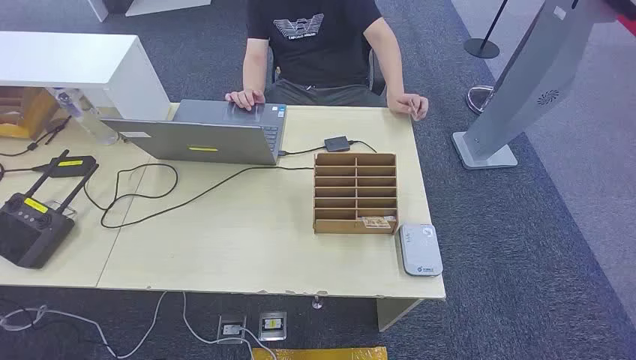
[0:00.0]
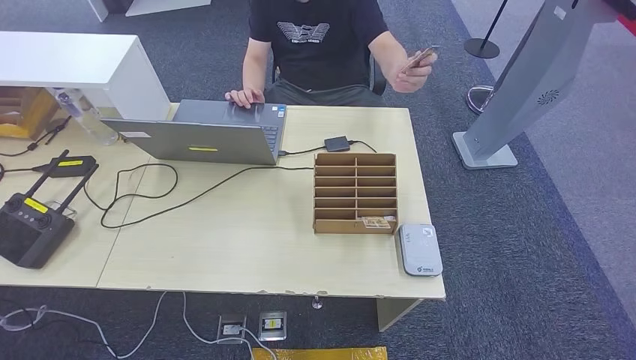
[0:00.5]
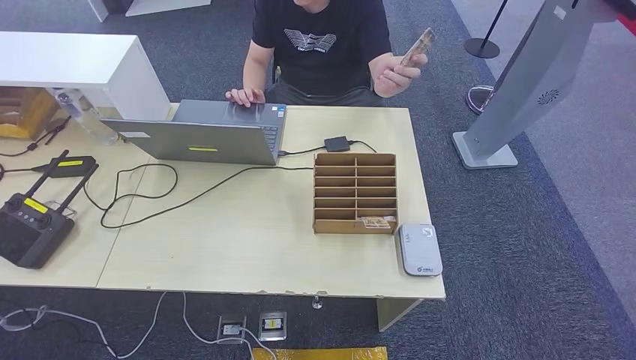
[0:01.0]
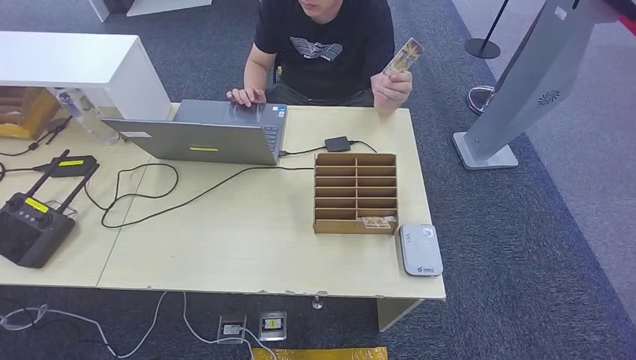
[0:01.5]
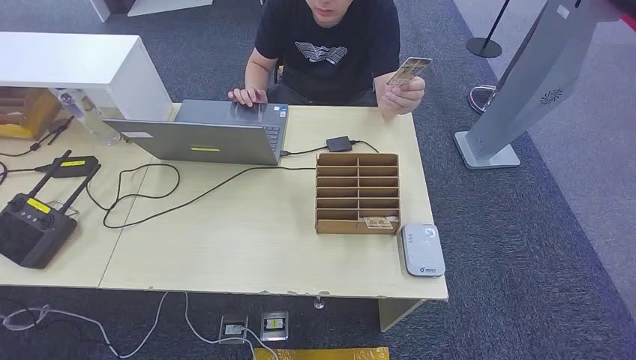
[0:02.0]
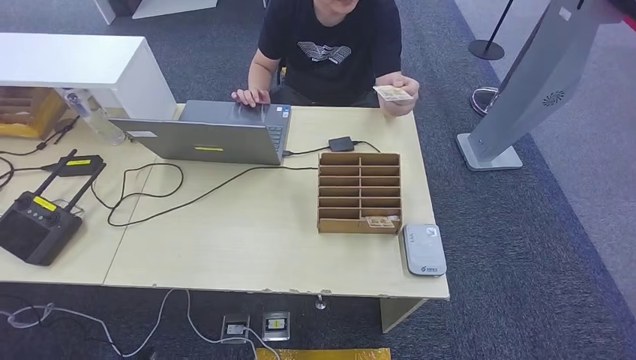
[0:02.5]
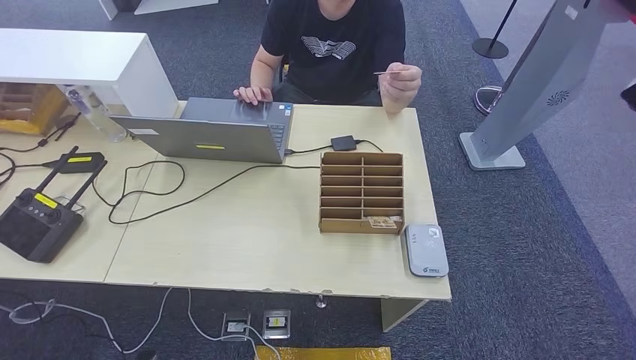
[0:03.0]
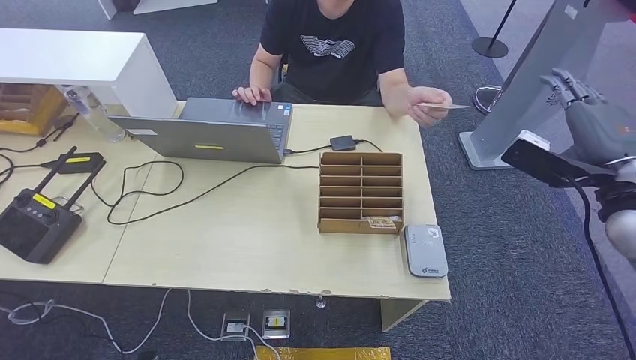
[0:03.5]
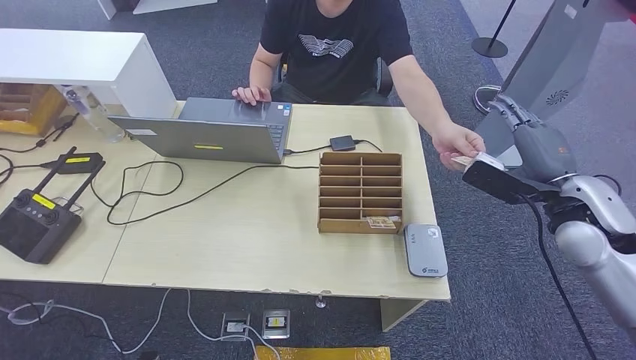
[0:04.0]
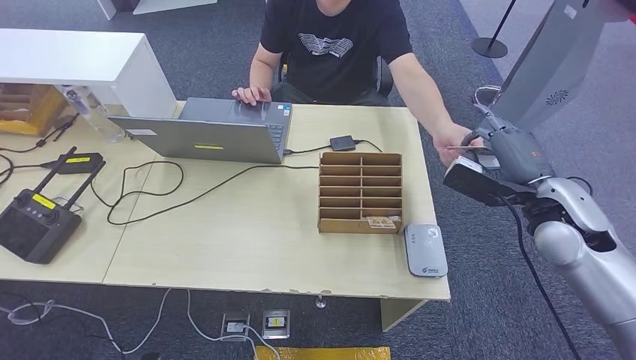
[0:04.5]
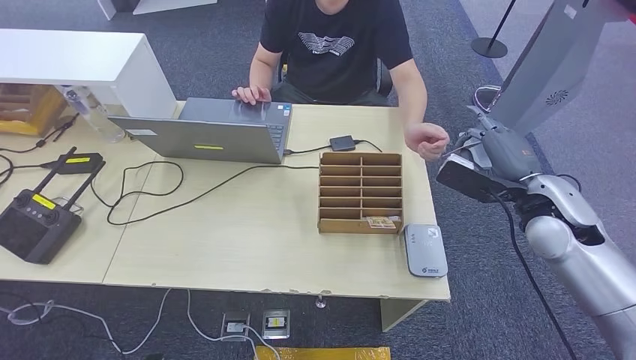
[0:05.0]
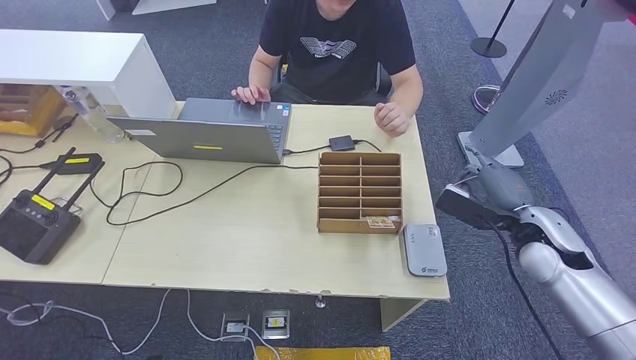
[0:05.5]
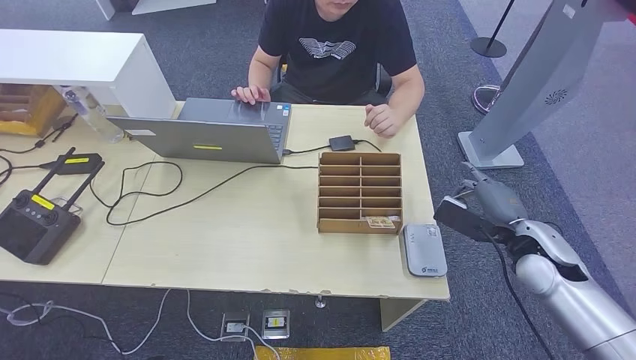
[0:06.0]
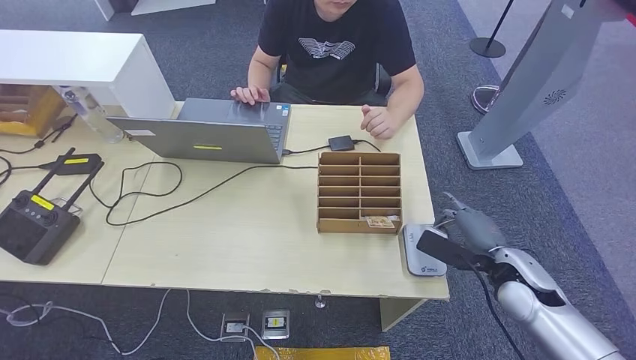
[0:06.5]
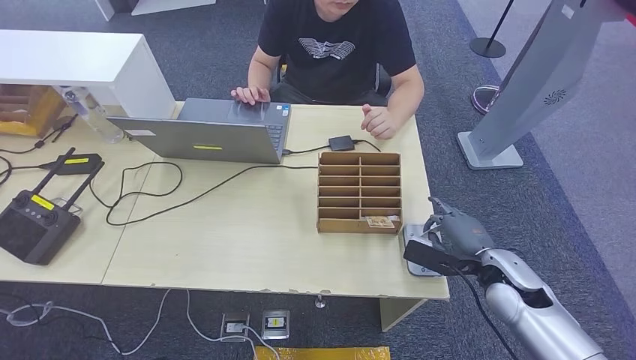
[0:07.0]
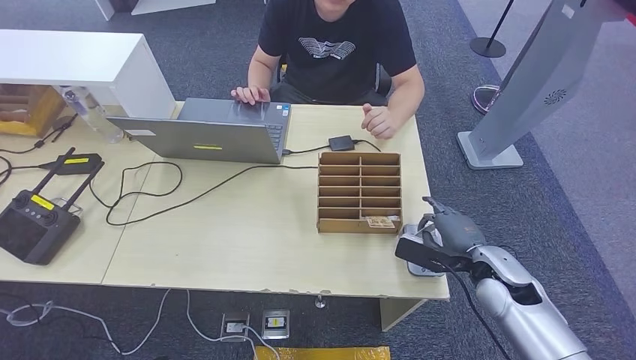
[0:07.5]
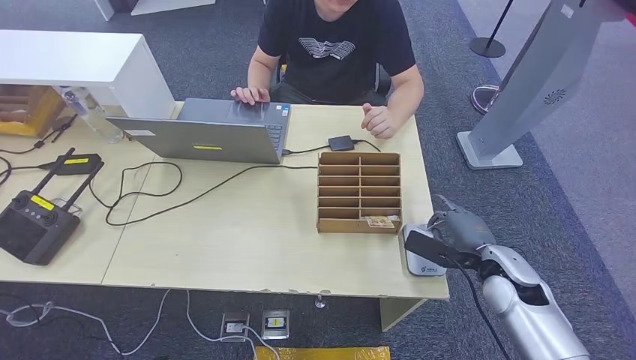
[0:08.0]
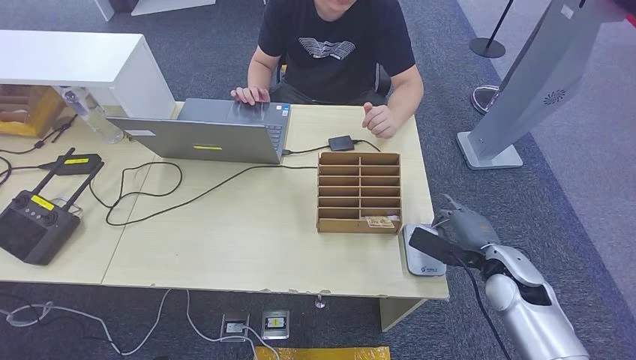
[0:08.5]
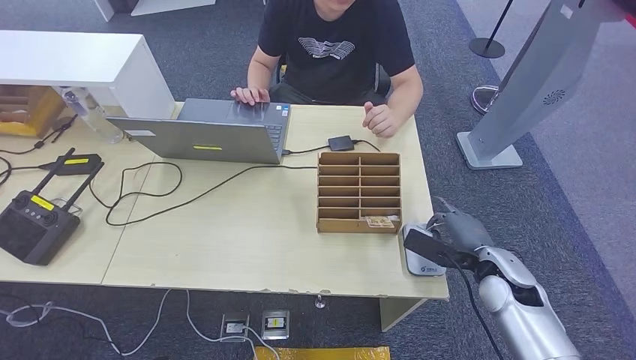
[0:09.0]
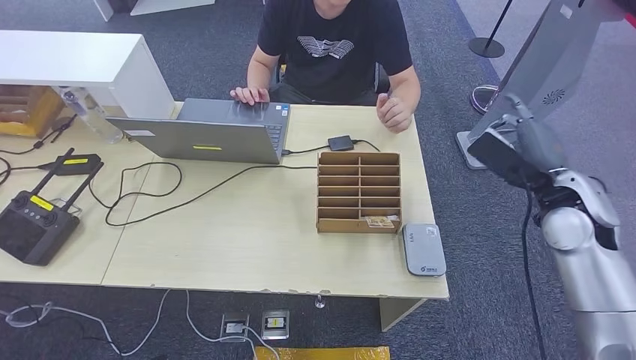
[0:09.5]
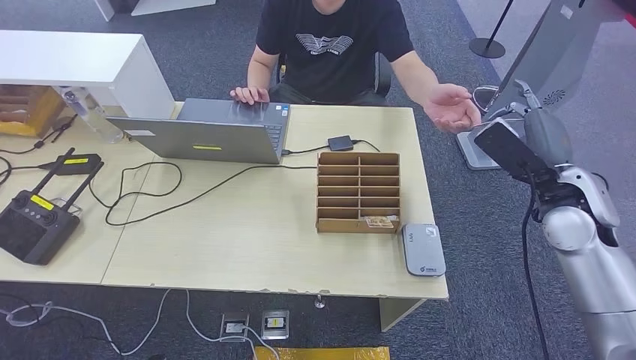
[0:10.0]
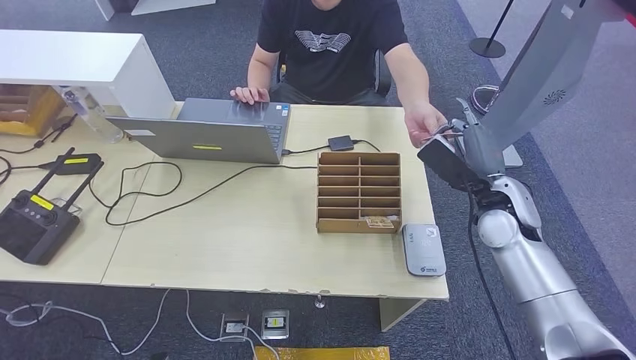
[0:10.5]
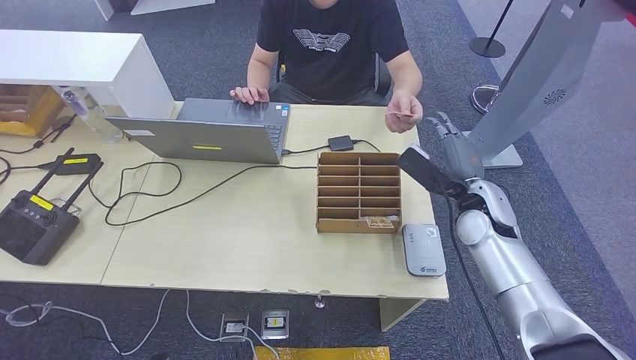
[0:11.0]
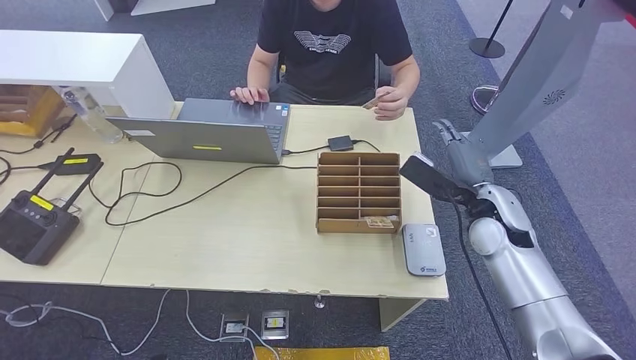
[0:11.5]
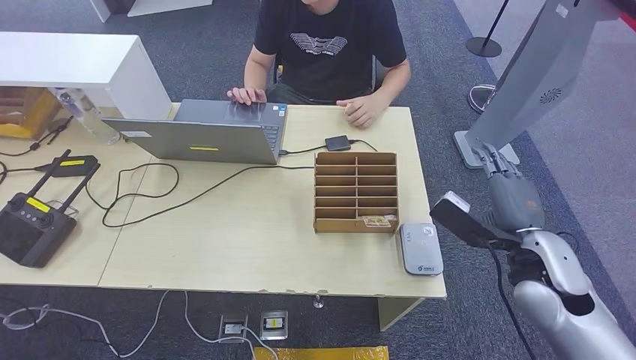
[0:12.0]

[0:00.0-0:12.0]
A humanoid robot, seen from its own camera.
Step, 0:00.0 to 0:05.5: Take the ID card from the person's hand.
Step, 0:06.0 to 0:08.0: Place the ID card on the card reader.
Step, 0:08.5 to 0:11.0: Hand the ID card to the person.
0:02.0 to 0:04.0: The right hand travels forward, upward and to the left by roughly 40 cm.
0:04.0 to 0:06.0: The right hand travels downward by roughly 10 cm.
0:06.0 to 0:08.0: The right hand moves downward, some 5 cm.
0:08.0 to 0:10.0: The right hand goes roughly 15 cm upward.

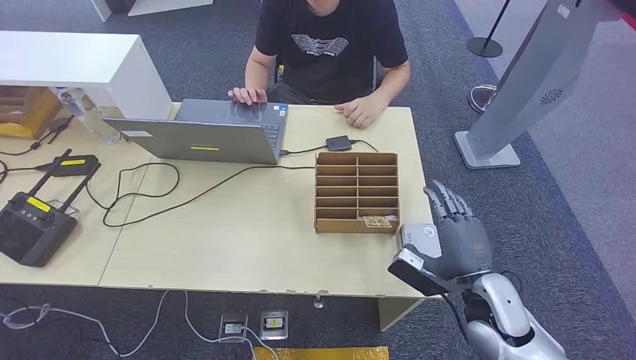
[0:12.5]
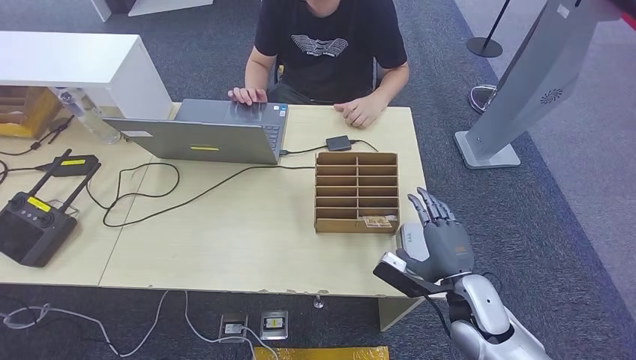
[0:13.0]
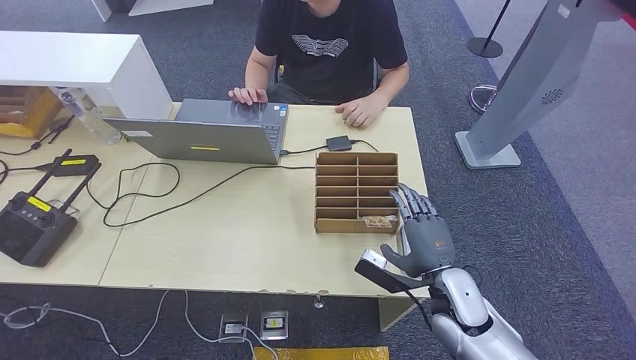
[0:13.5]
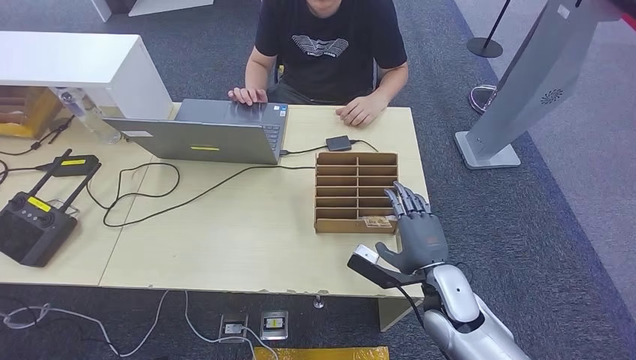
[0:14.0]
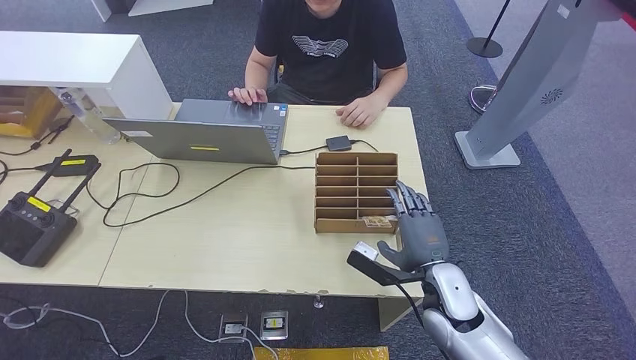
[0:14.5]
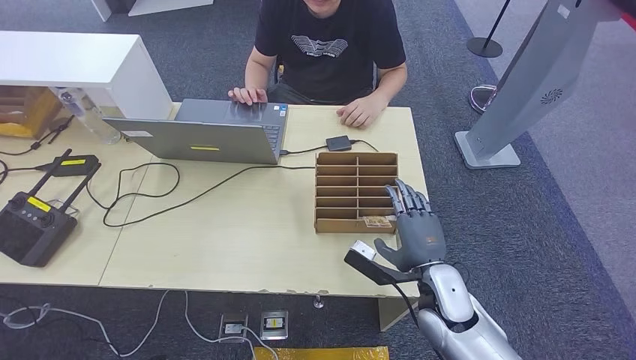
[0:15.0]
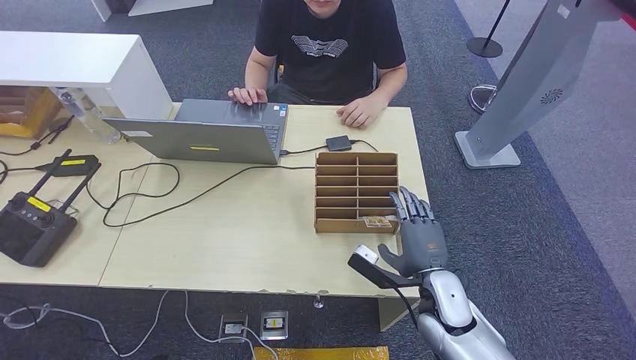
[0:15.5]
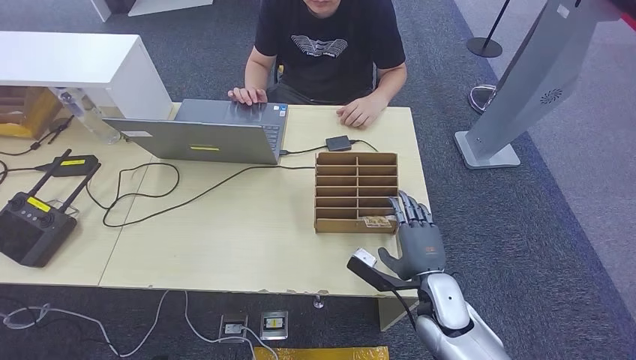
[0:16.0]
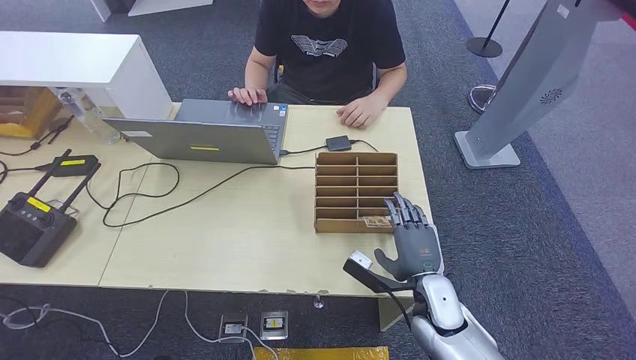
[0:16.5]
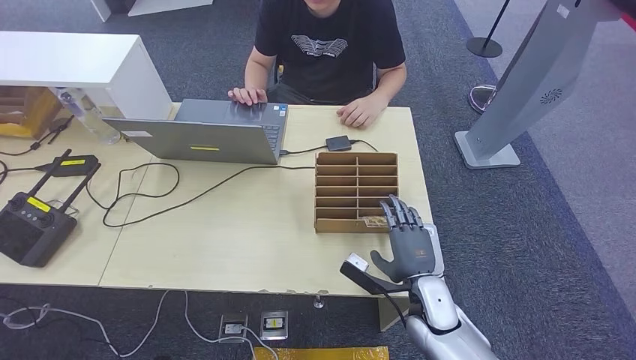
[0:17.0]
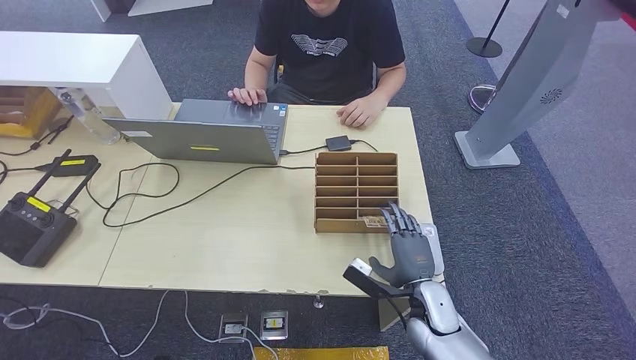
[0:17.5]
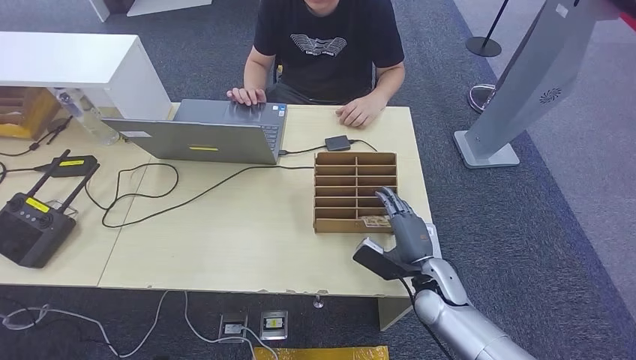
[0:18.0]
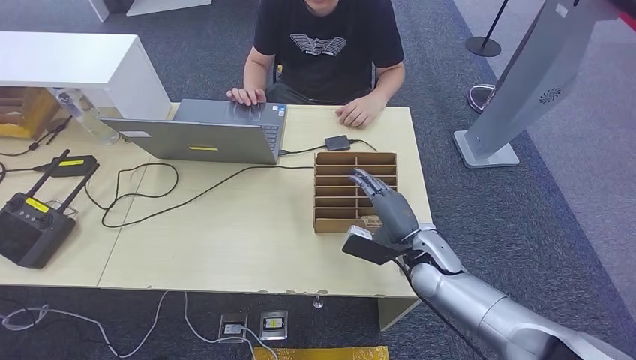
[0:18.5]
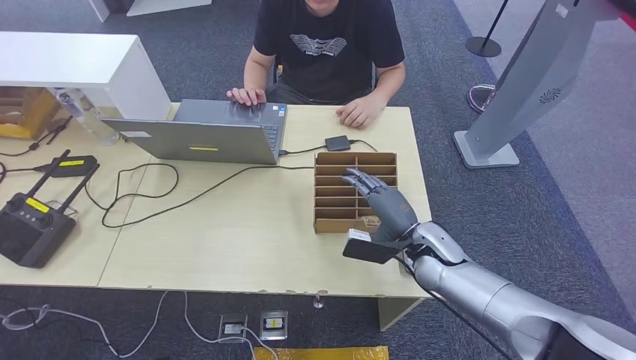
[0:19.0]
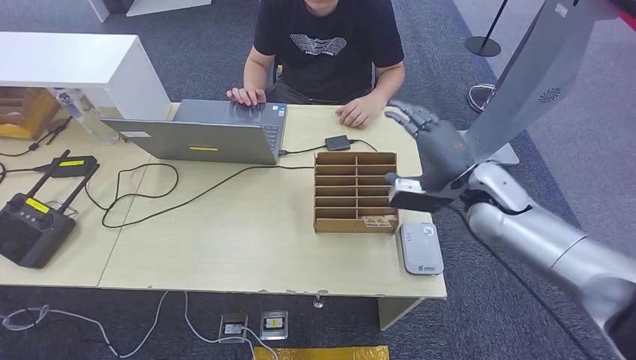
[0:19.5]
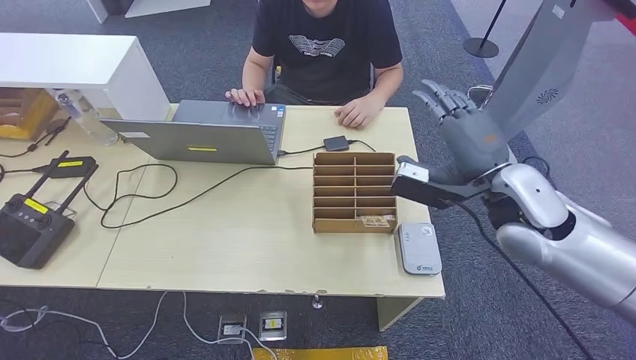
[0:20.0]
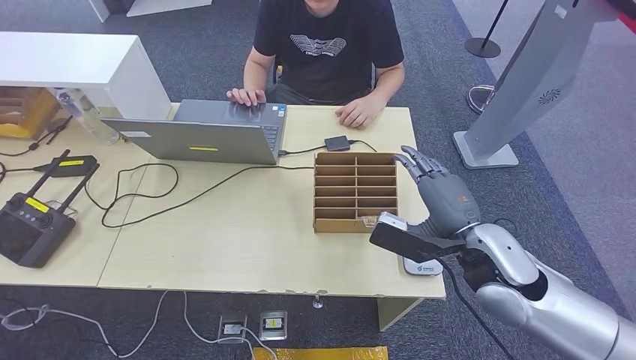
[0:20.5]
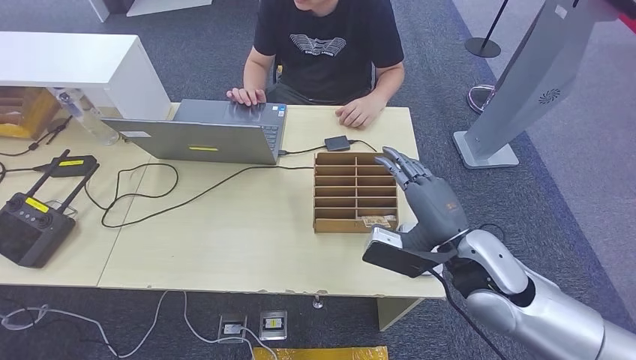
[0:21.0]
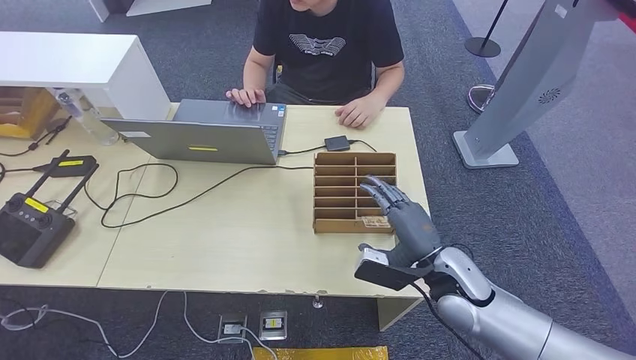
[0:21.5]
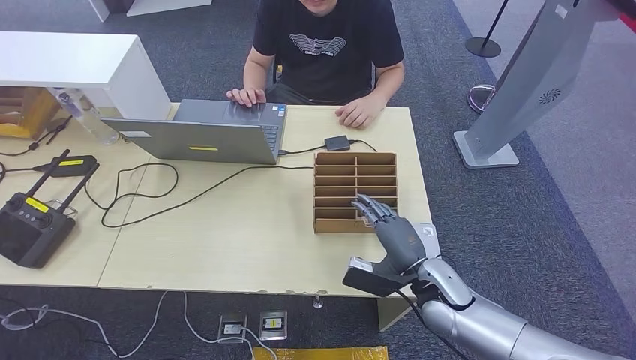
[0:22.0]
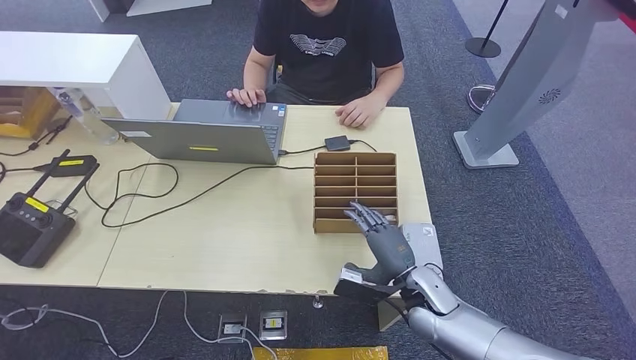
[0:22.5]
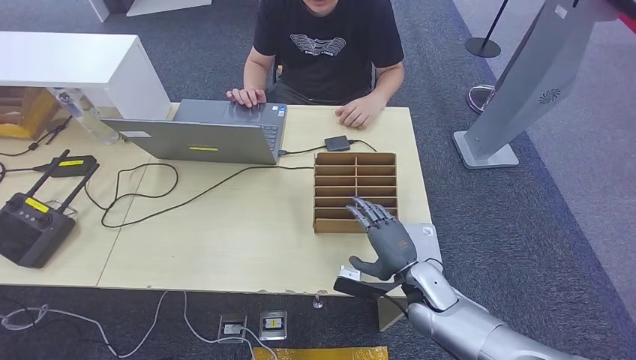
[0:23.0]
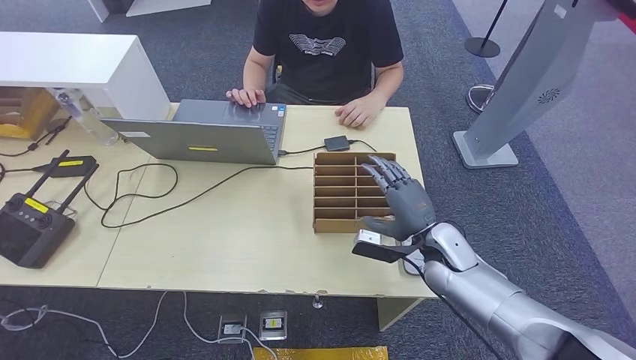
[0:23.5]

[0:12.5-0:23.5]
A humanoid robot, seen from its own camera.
0:12.5 to 0:14.5: The right hand goes some 5 cm to the left.
0:14.5 to 0:16.0: There are only small adjustments of the hands.
0:18.0 to 0:20.0: The right hand shifts roughly 25 cm upward.
0:20.0 to 0:21.5: The right hand heads downward and backward, covering about 15 cm.
0:21.5 to 0:23.5: The right hand shifts roughly 5 cm forward.
